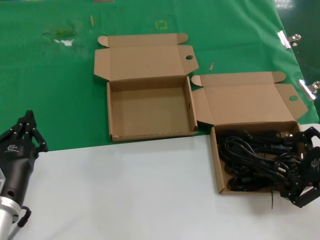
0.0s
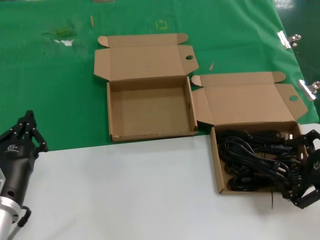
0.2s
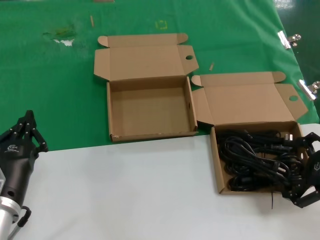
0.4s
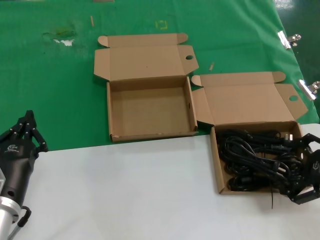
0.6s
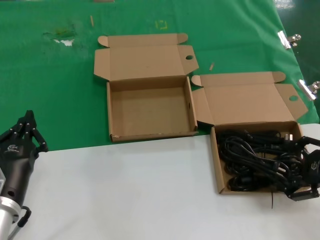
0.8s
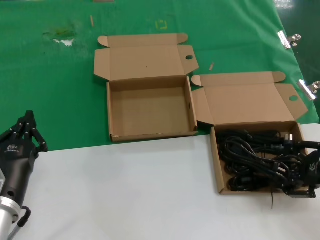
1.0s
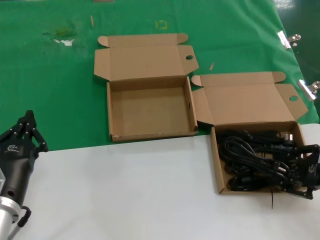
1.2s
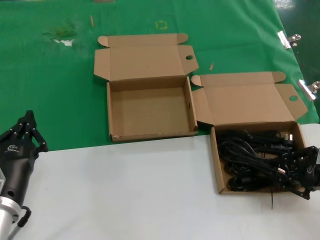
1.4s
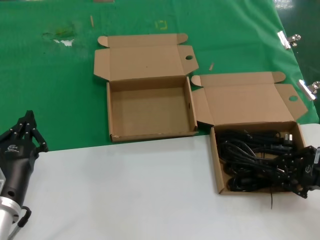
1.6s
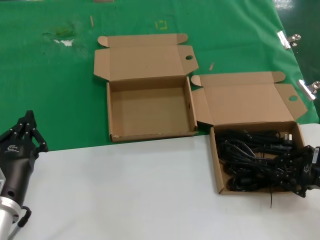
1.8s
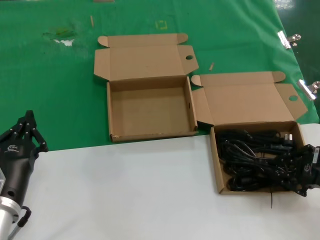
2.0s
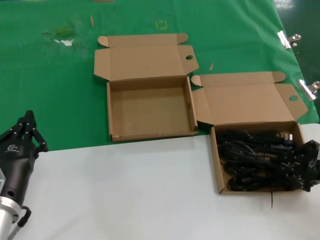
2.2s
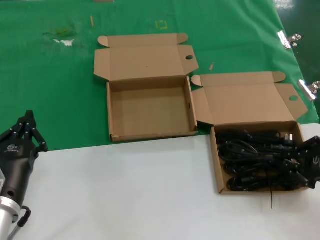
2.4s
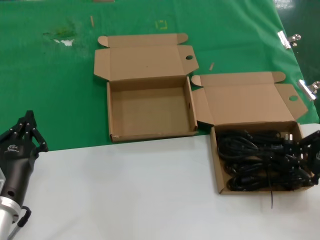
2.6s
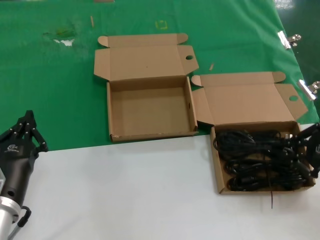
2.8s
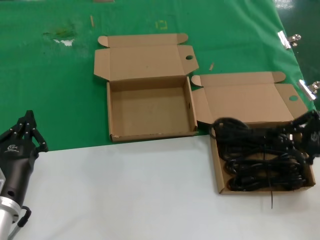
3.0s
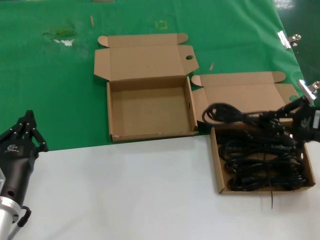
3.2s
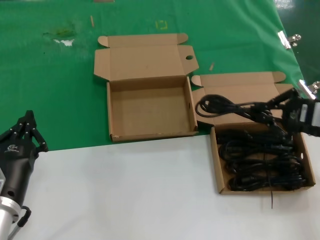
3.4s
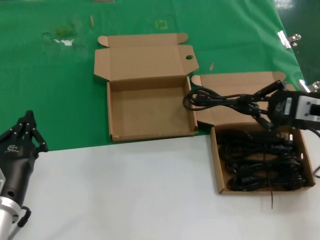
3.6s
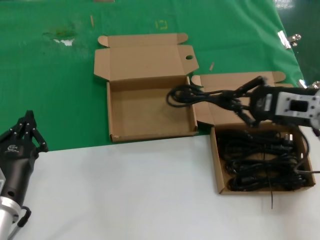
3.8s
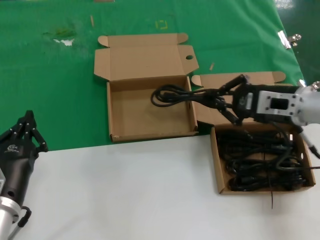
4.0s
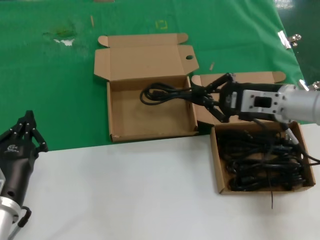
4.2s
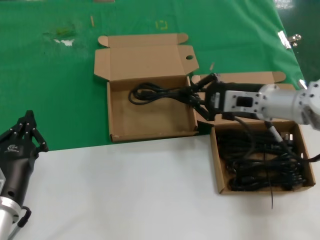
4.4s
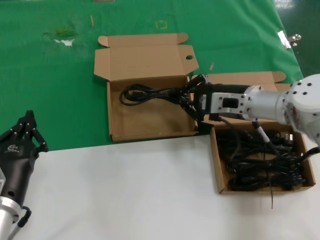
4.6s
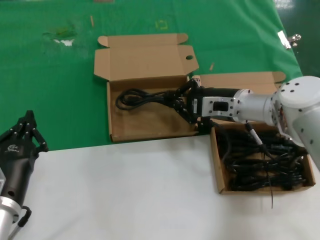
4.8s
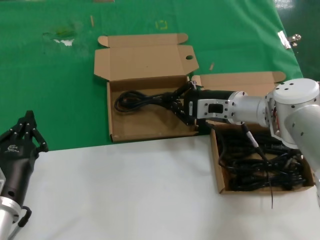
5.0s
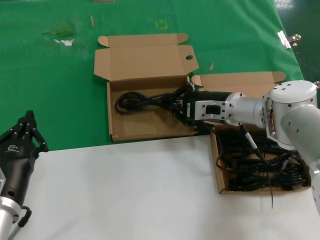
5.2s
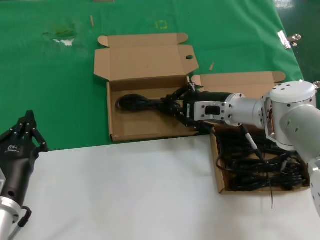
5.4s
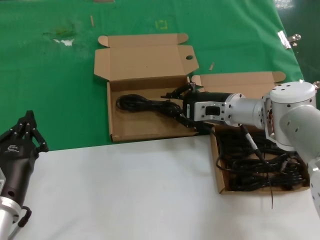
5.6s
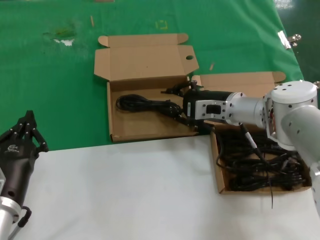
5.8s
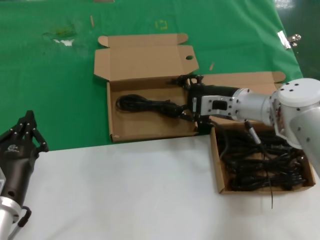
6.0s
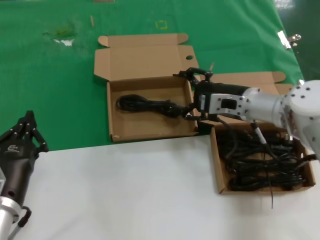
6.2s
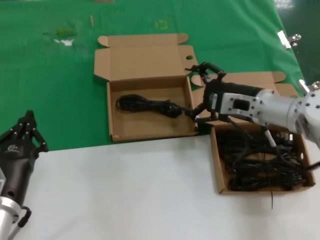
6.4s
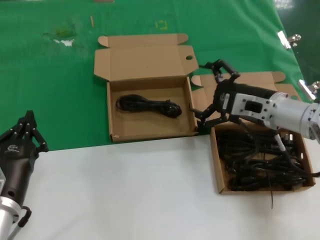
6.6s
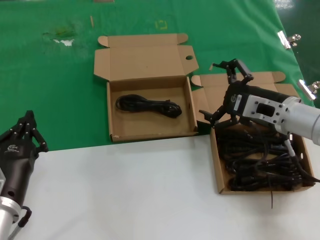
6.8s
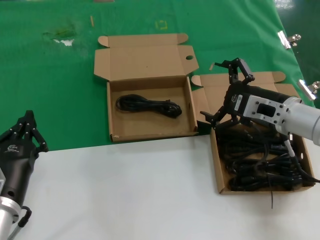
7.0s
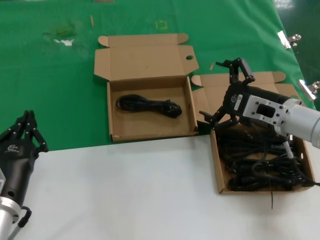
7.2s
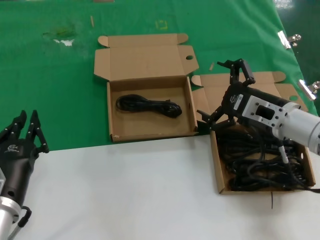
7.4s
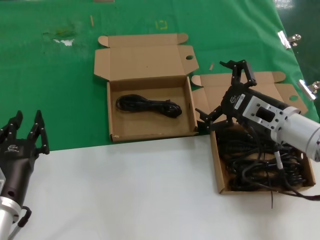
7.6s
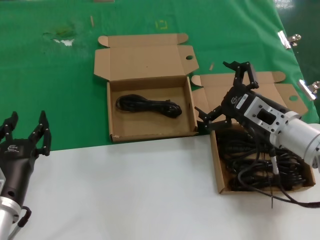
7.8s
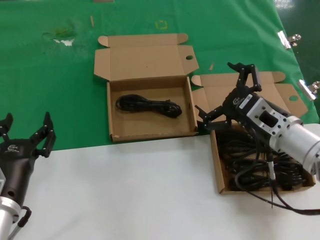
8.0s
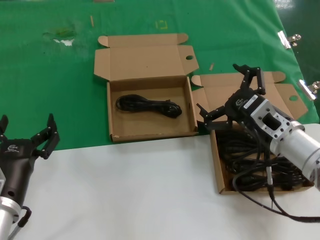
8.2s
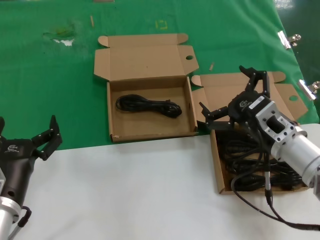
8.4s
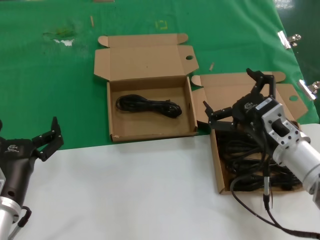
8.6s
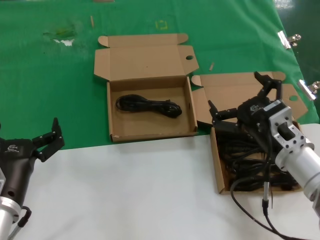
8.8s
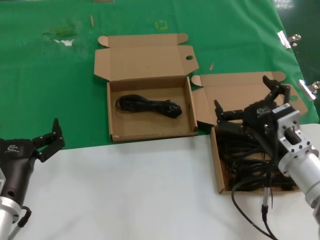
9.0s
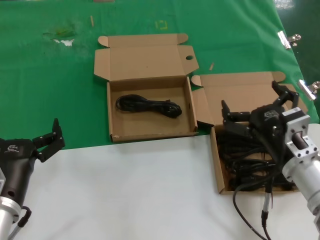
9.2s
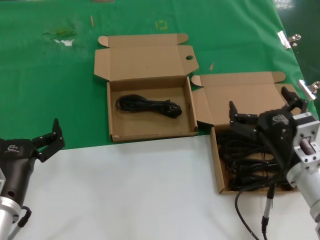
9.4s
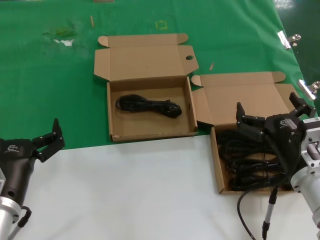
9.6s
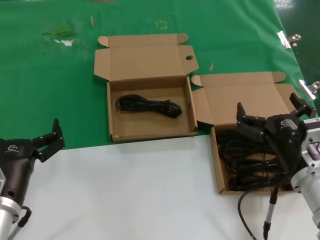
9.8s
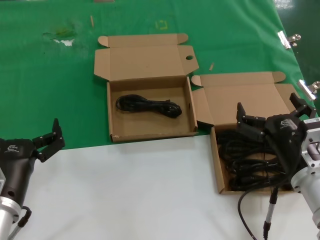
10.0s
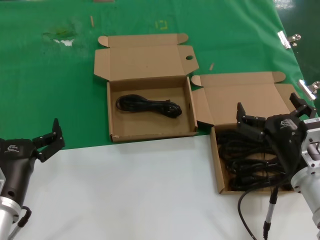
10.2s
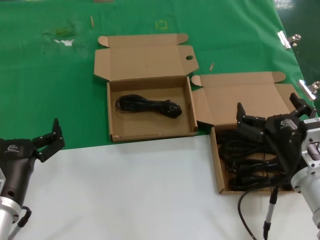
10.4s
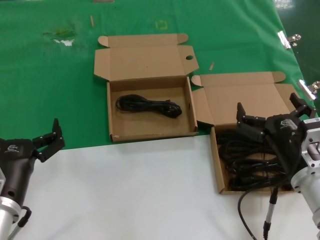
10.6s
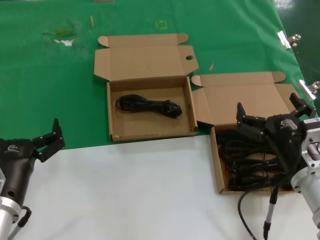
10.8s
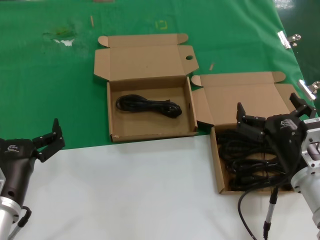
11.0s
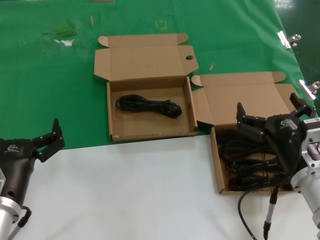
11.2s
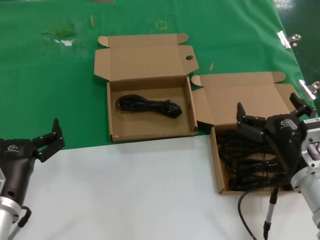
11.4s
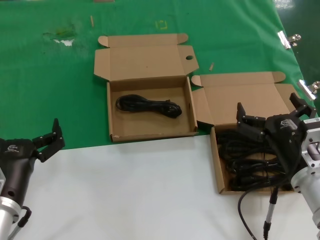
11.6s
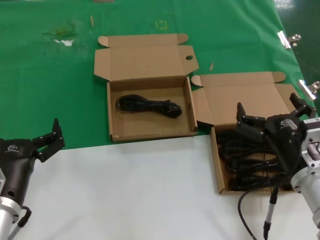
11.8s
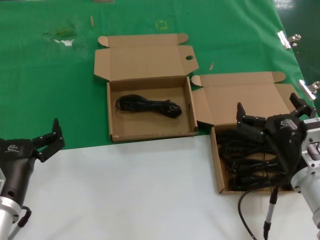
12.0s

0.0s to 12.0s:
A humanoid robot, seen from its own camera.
Task of the whole recording: take the parts from the box containing them and put them into an empty box.
Step, 1.8s to 5.6s: Place the data cable in the another box.
0.0s to 1.6s: The hands move only a little.
1.6s to 3.0s: The right hand travels upward by some 5 cm.
3.0s to 4.4s: The right hand moves forward and to the left, some 20 cm.
4.4s to 6.0s: The right hand changes place by roughly 5 cm.
6.0s to 7.6s: The right hand travels backward by about 10 cm.
7.6s to 9.0s: The right hand shifts about 5 cm backward.
9.0s to 10.4s: The hands stay close to where they were, moving slightly.
10.4s to 12.0s: Both hands stay put.

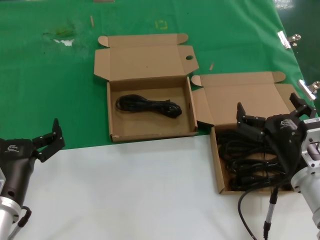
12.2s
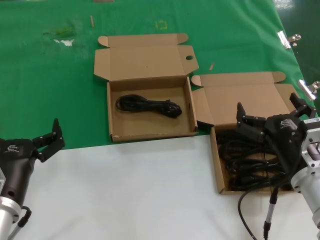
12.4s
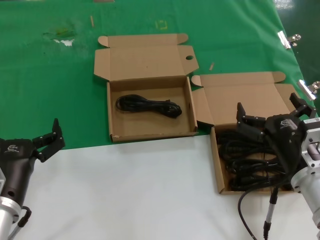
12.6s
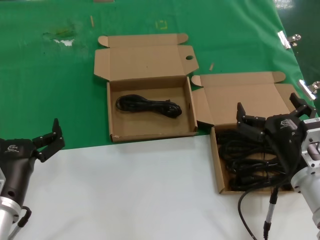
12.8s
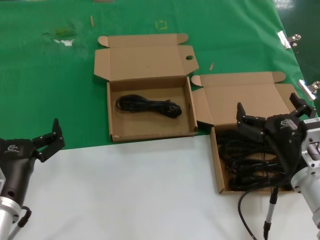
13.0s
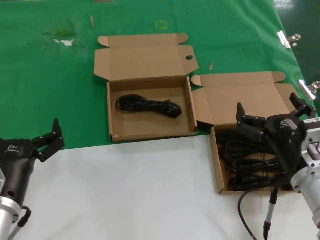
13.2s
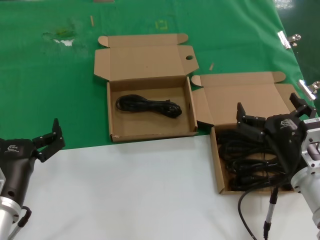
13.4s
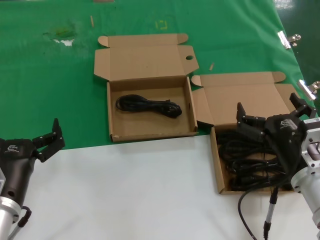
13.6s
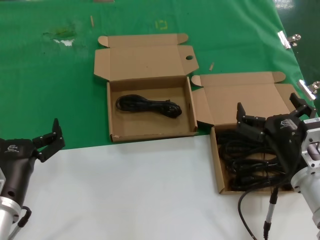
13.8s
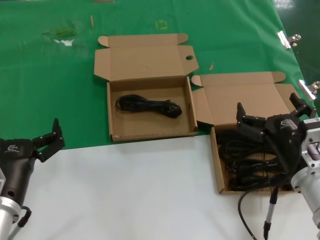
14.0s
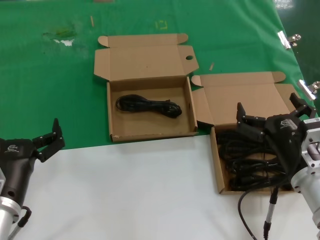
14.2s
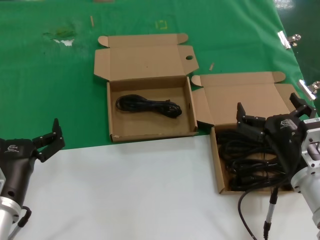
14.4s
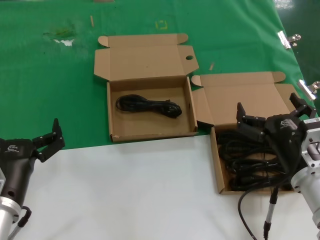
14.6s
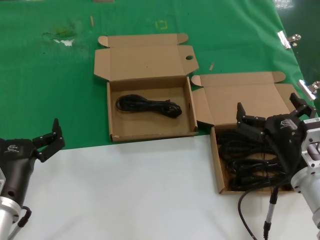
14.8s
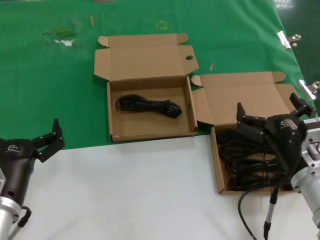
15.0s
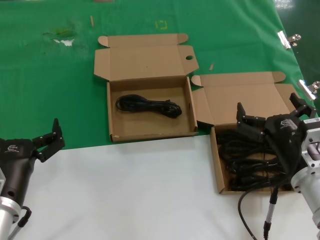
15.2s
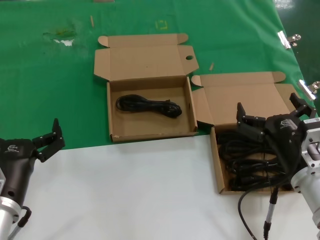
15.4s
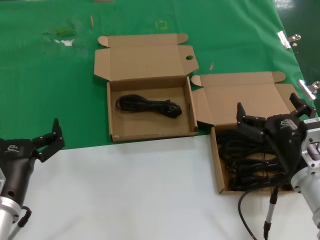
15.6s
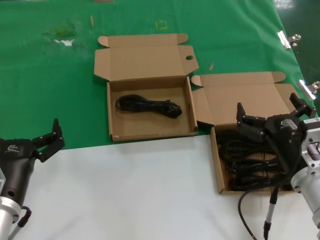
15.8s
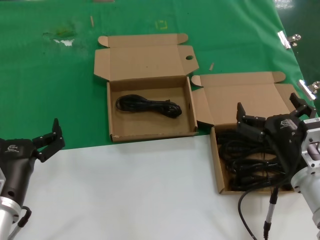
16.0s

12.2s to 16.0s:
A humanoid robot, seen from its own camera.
Task of the whole recording: take the parts from the box containing them and put them into an empty box.
12.2s to 16.0s: The two hands keep their place.

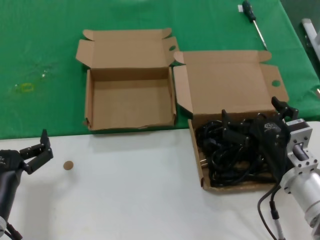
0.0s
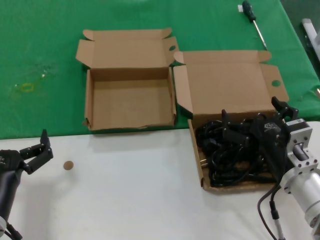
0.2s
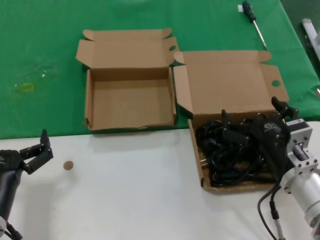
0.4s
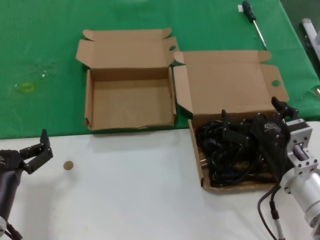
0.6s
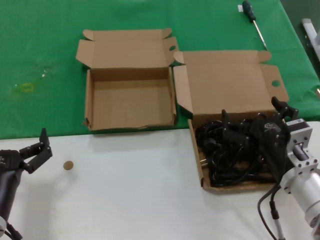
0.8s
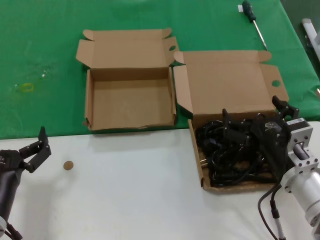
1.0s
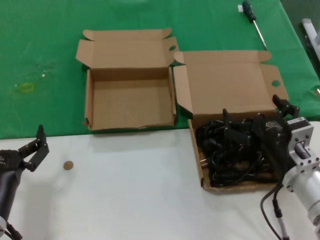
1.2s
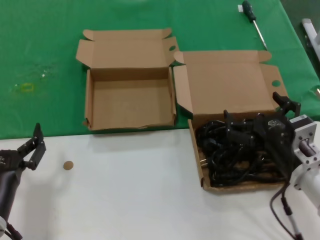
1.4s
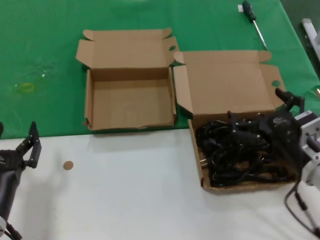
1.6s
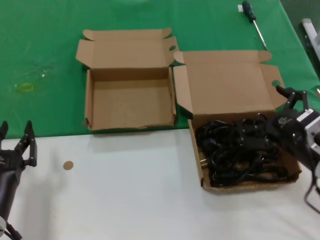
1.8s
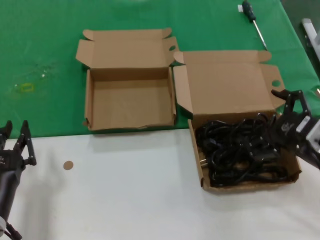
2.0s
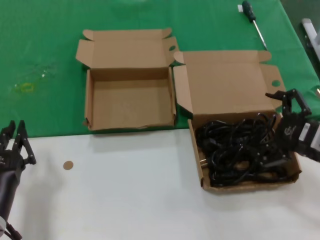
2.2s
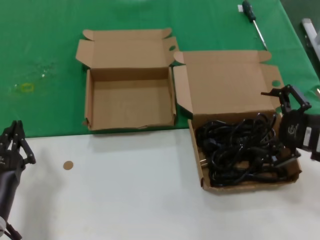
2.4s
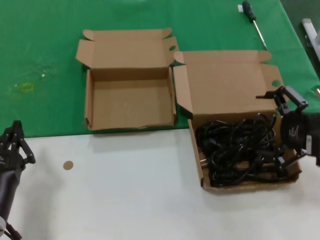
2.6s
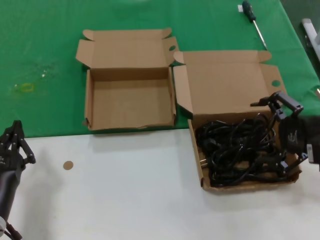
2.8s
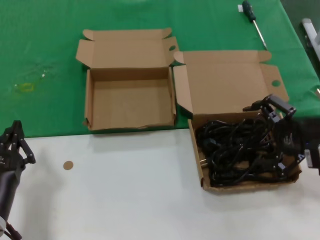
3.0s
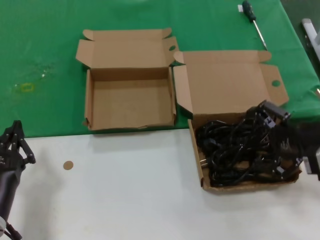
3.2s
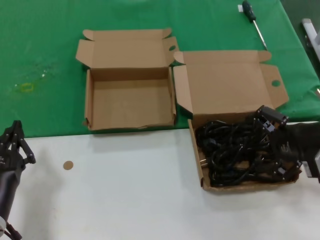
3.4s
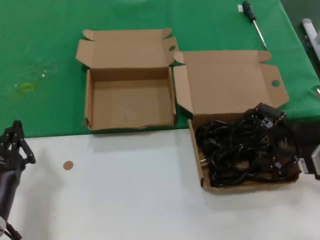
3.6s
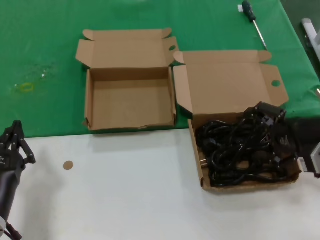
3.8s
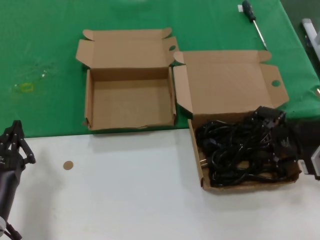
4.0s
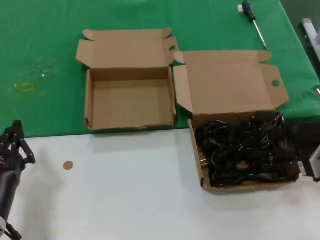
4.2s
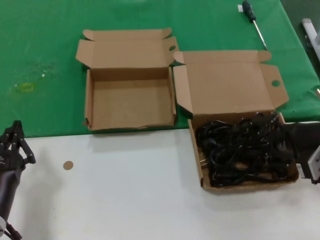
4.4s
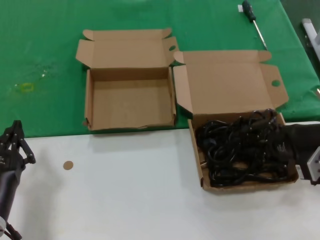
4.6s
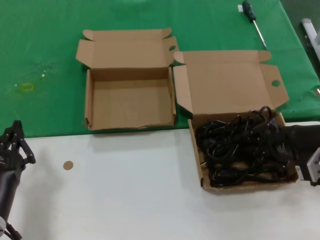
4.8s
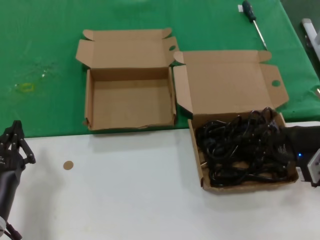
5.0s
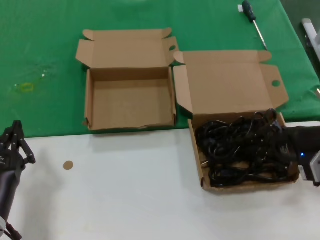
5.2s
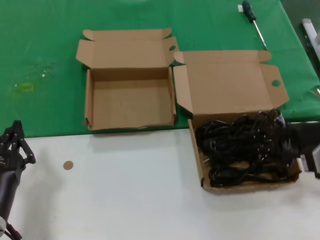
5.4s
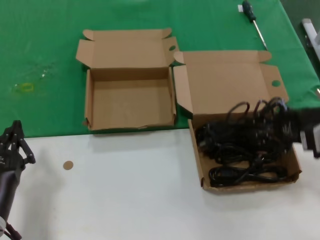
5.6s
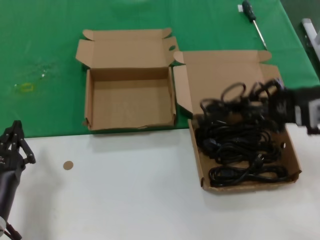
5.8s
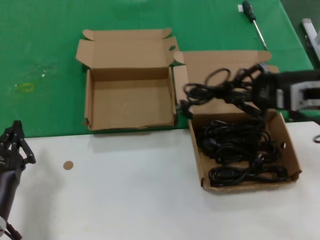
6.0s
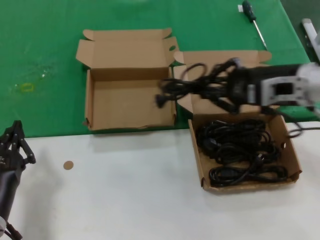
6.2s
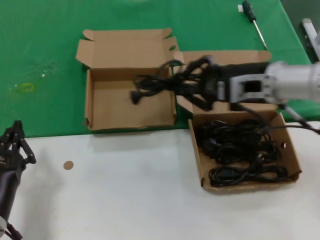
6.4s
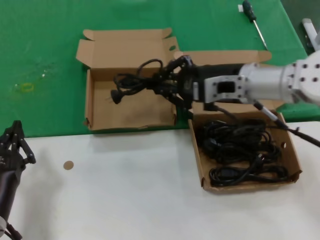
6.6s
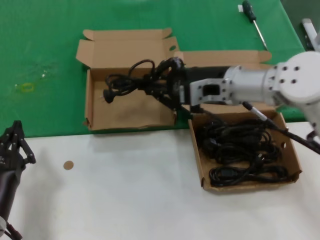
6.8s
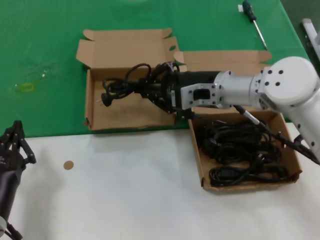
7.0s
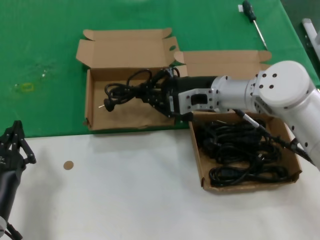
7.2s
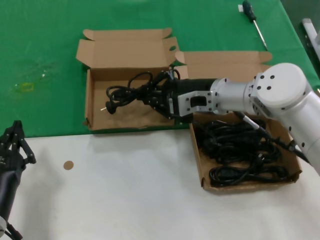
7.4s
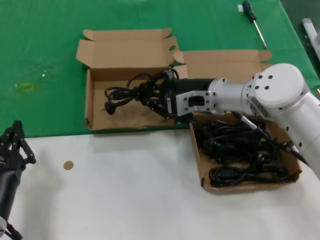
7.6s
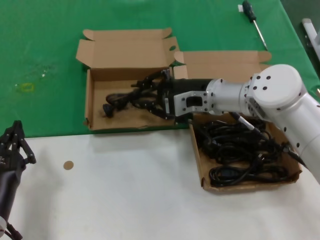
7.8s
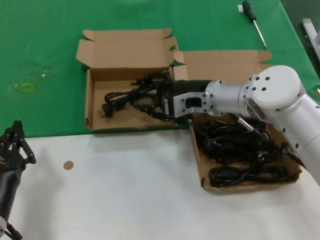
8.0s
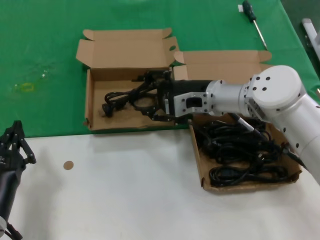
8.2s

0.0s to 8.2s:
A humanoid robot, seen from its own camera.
Task of the whole recording: take the parts from the box containing them and put them into an empty box.
Step, 0.0s to 4.8s: Grasp the data cable.
0.0s to 1.6s: The hands stay close to where they were, moving slightly.
1.6s to 3.2s: The right hand travels upward and to the right by some 15 cm.
3.2s to 5.0s: There are only small adjustments of the hands.
5.0s to 6.6s: The right hand shifts about 20 cm to the left, forward and upward.
6.6s to 8.2s: The right hand is displaced downward by about 5 cm.
